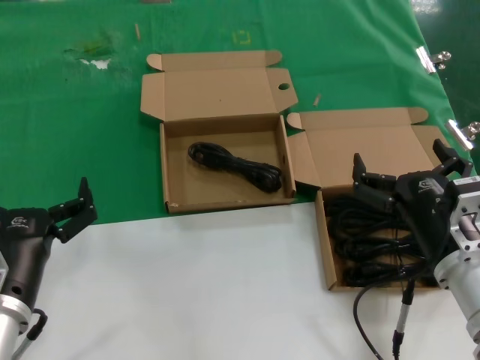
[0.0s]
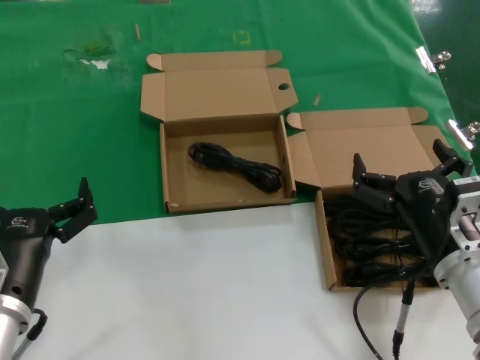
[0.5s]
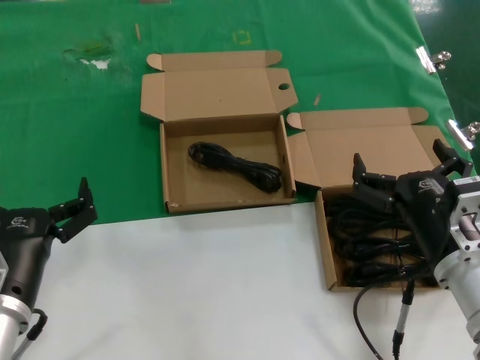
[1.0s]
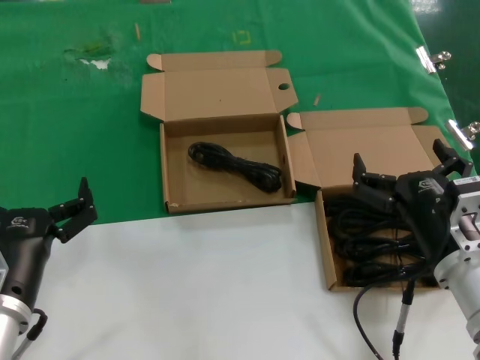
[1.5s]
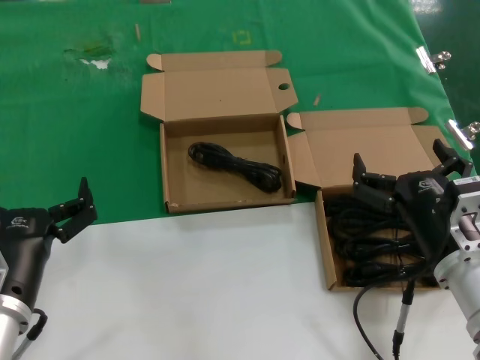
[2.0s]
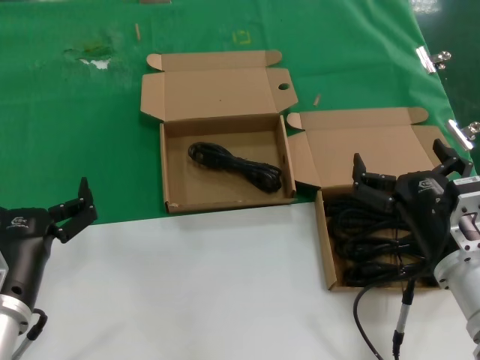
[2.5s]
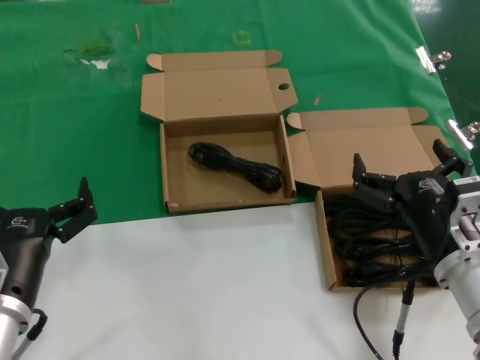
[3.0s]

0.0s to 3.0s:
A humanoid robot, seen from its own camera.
Task of the whole recording: take the parts from the box containing them and put them into an empty box.
0.0s to 3.0s: The two hands keep their place.

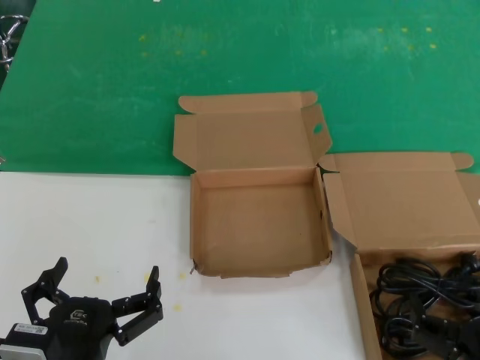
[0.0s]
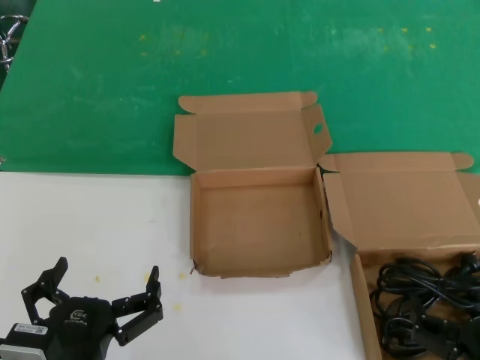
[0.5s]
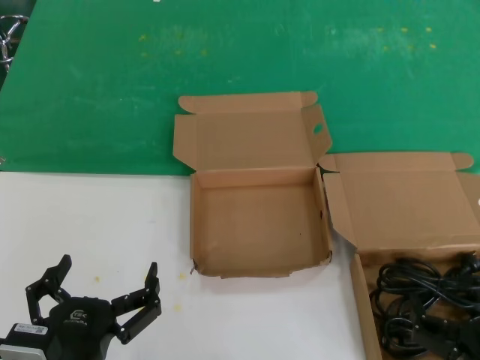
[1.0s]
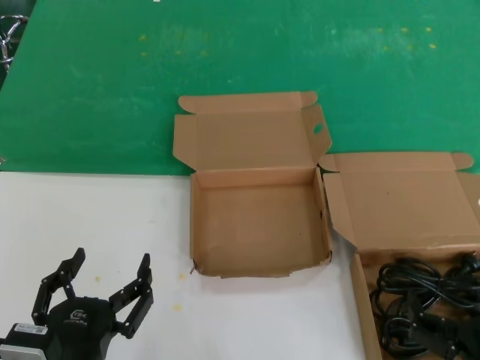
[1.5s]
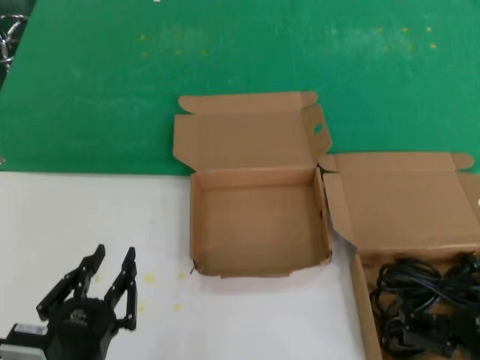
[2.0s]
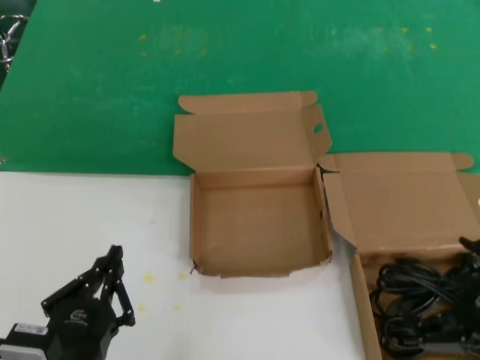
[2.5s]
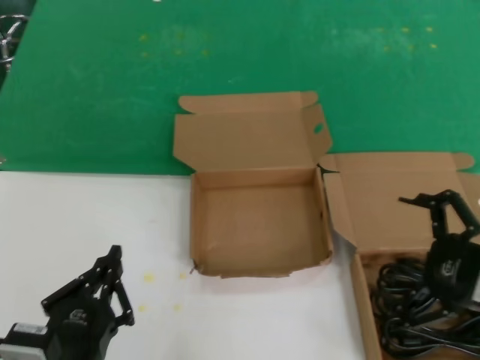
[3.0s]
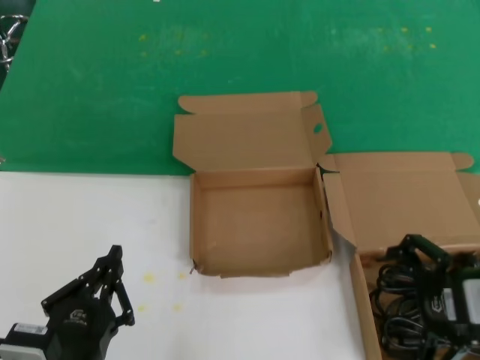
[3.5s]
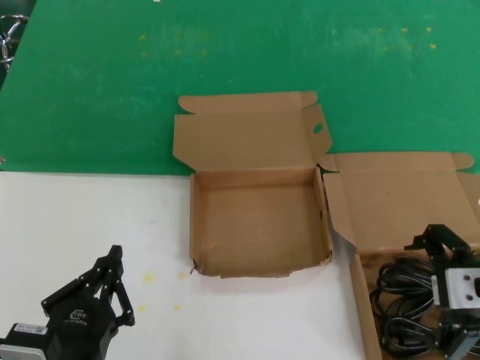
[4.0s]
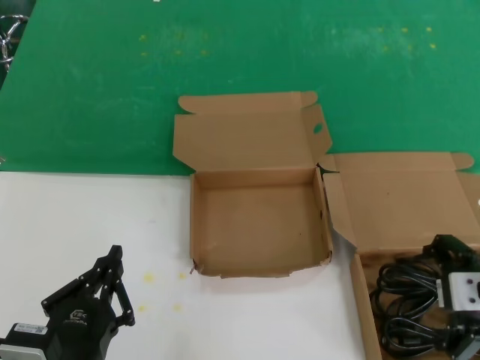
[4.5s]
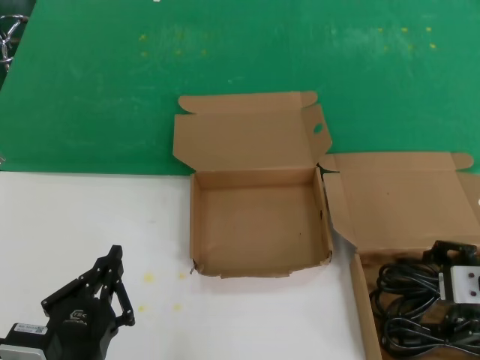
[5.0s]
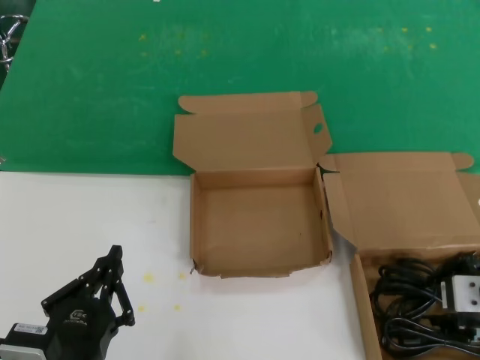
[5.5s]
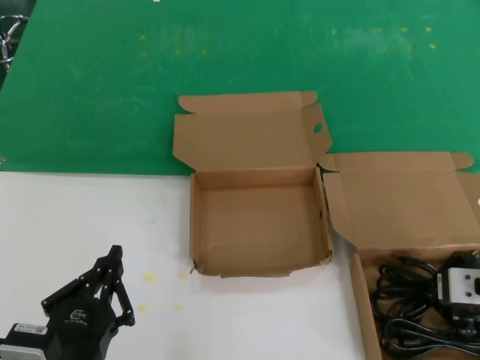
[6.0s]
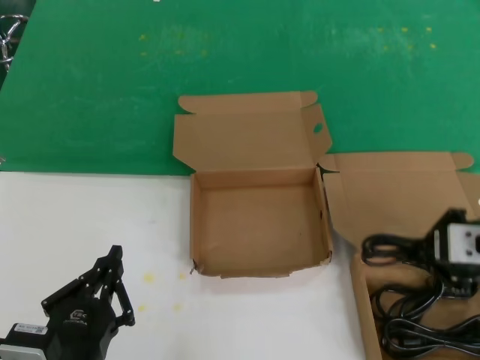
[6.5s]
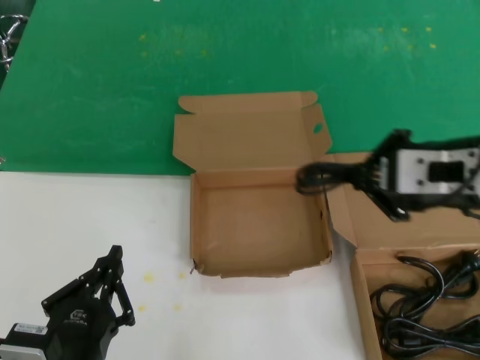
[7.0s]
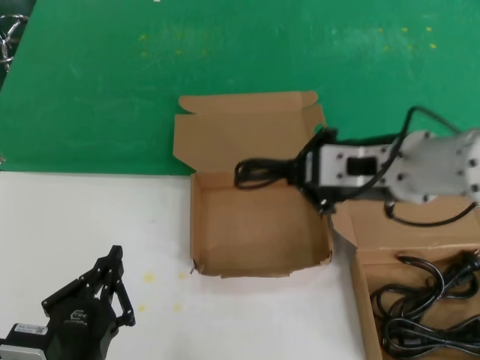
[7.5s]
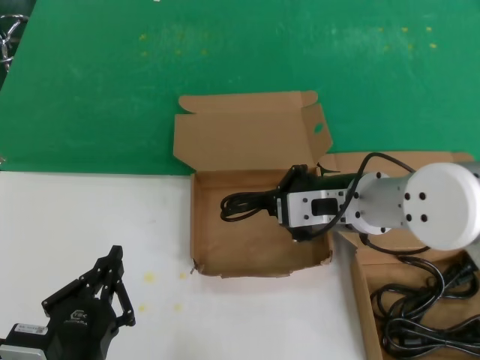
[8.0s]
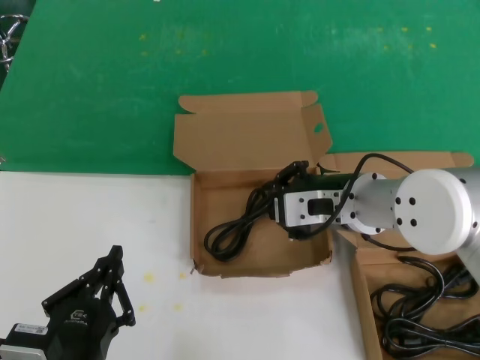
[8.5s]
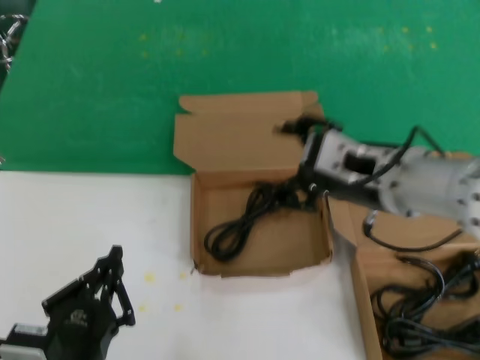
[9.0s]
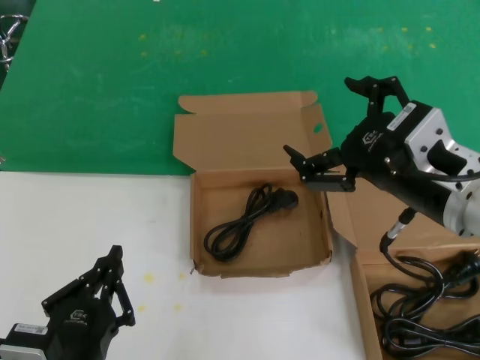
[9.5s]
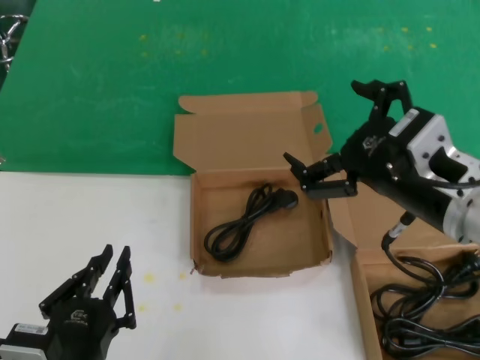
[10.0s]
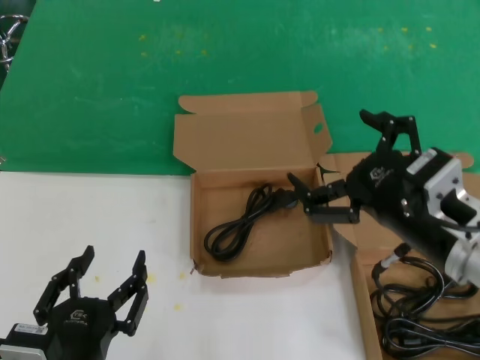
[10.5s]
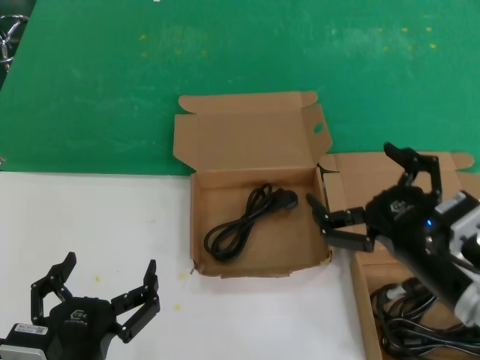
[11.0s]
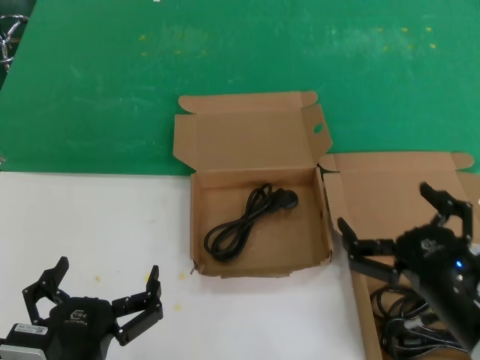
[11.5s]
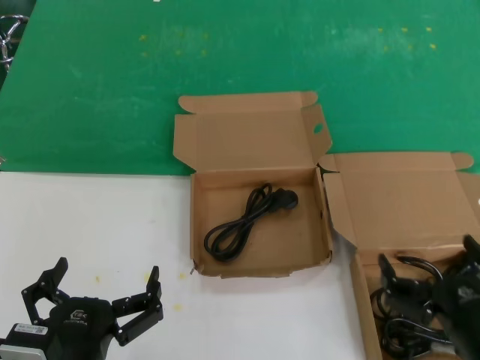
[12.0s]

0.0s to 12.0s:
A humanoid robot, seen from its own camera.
Task of the whole recording: take the parts from the box containing them and put them into an empty box.
Step, 0.0s to 5.5s: Grasp the data cable.
Step, 6.0s to 8.5s: Place the data cable in the another box.
0.0s to 2.0s: There are only small adjustments of the hands.
2.0s to 4.0s: The right hand travels upward and forward by roughly 20 cm.
4.0s to 6.0s: The right hand ends up about 5 cm from where it was.
6.0s to 8.0s: The right hand travels to the left by roughly 15 cm.
8.0s to 10.0s: The right hand shifts approximately 15 cm backward and to the right.
10.0s to 12.0s: The right hand moves downward, about 20 cm.

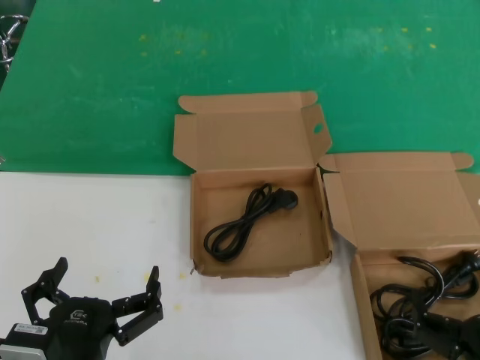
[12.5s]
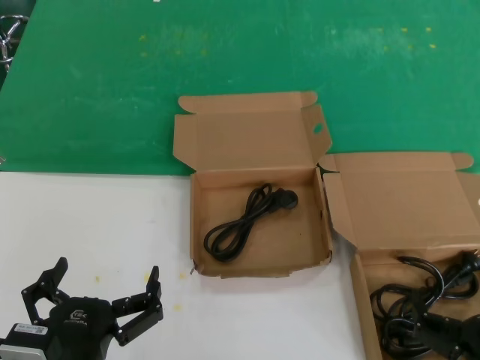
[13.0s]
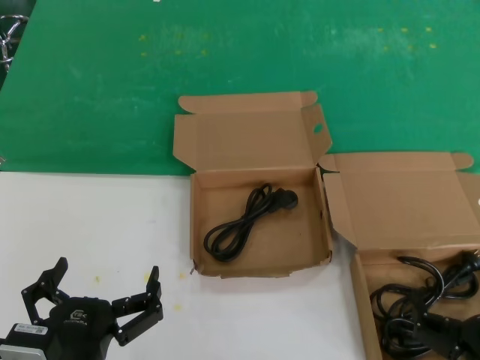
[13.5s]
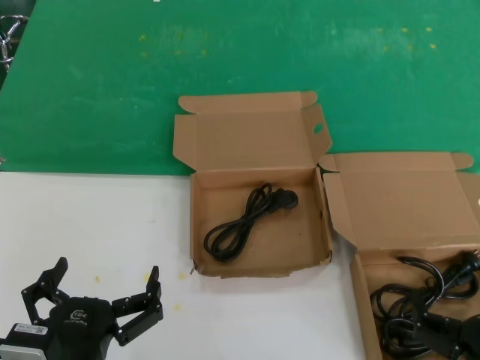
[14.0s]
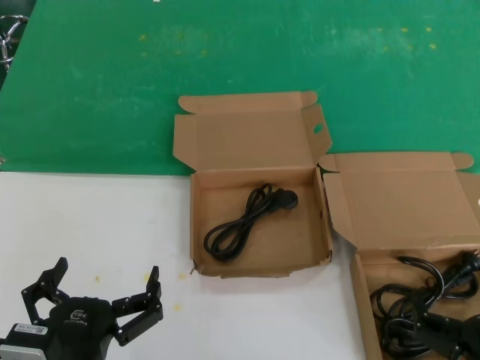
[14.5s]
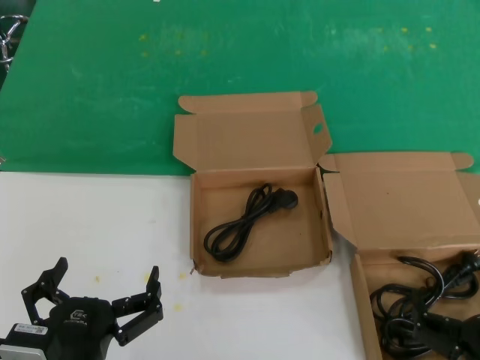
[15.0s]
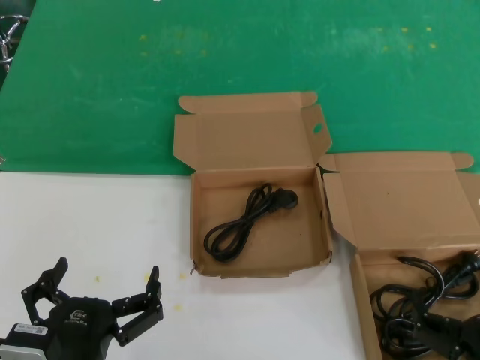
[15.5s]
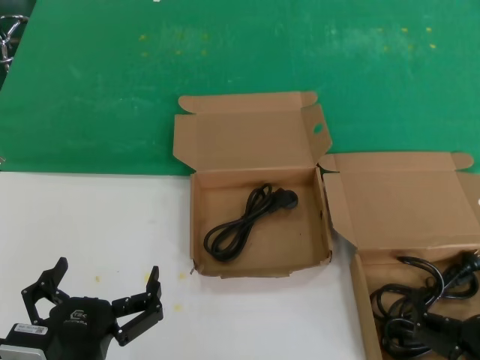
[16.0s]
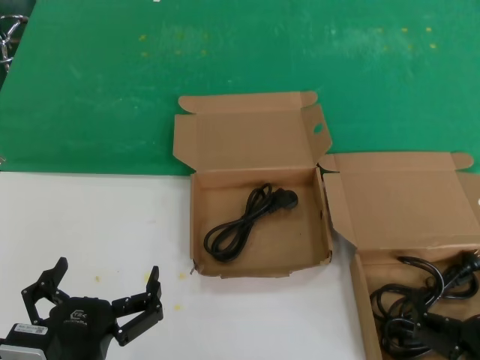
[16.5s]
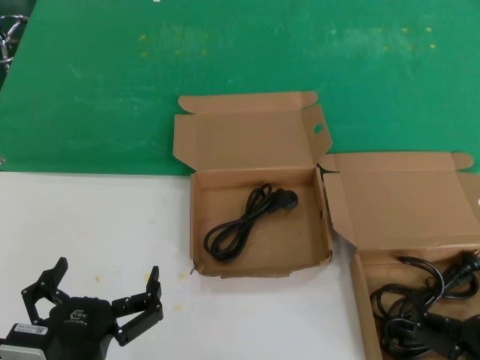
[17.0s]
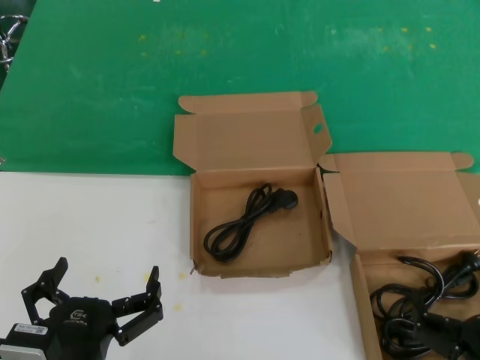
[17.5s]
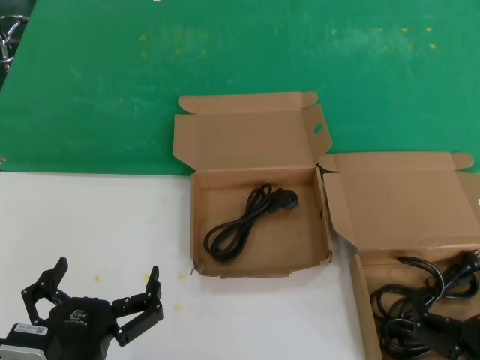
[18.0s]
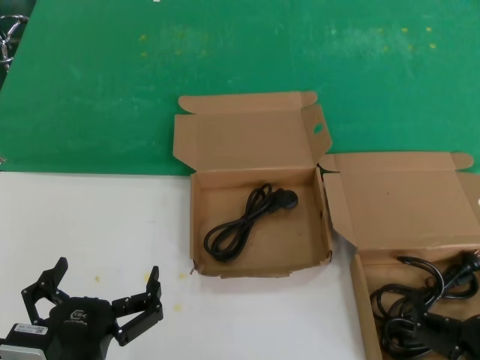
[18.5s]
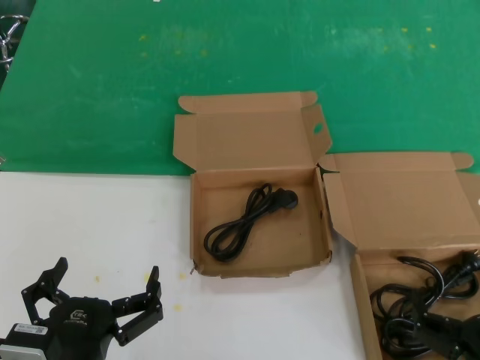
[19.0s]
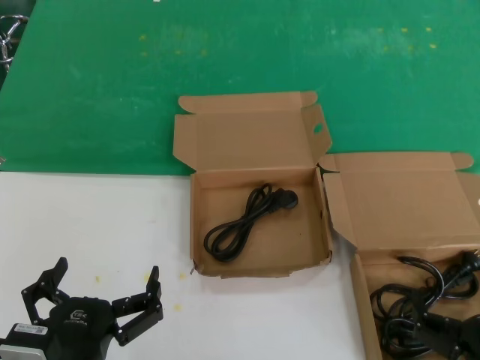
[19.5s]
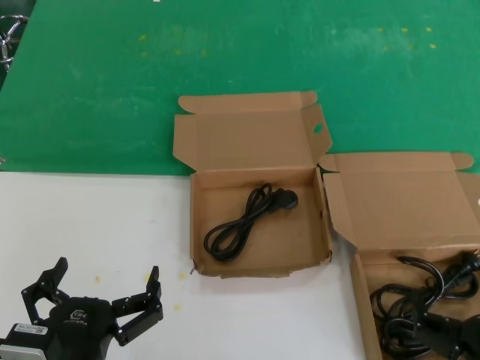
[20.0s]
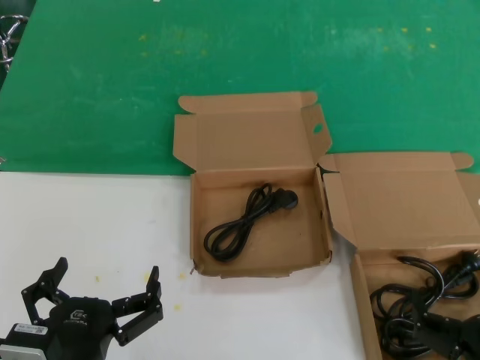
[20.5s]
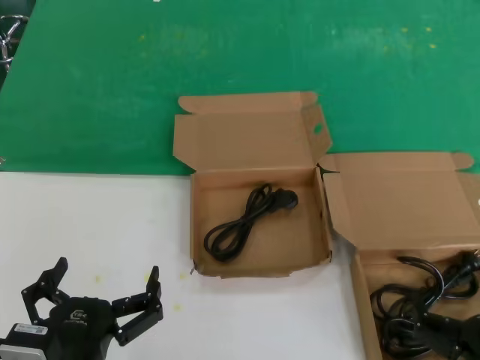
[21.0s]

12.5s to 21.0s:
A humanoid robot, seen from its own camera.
Task of the whole recording: take the parts from the box containing them and put them into an empty box.
12.5s to 21.0s: Neither hand changes place.

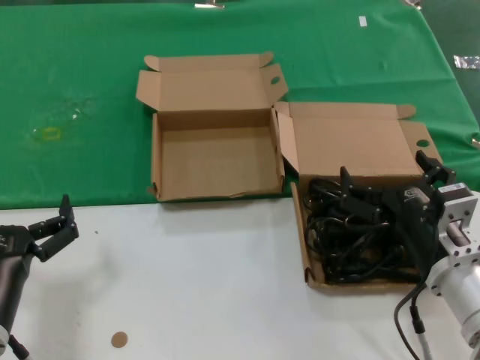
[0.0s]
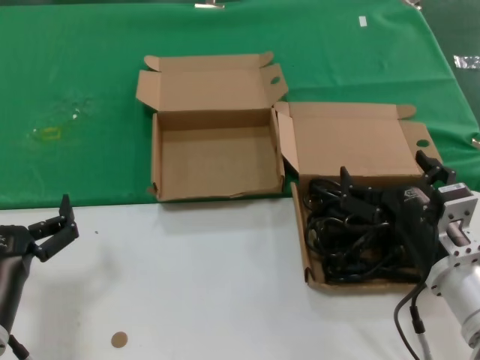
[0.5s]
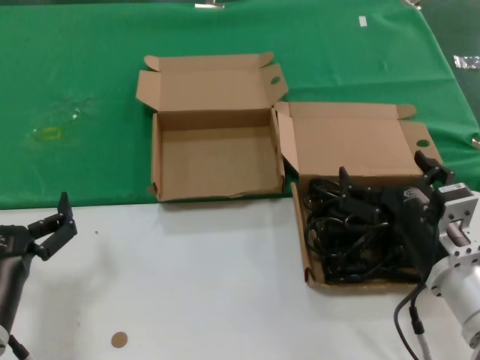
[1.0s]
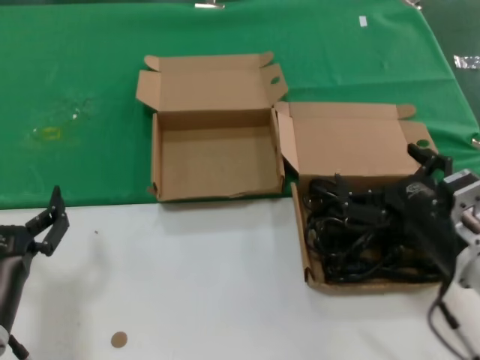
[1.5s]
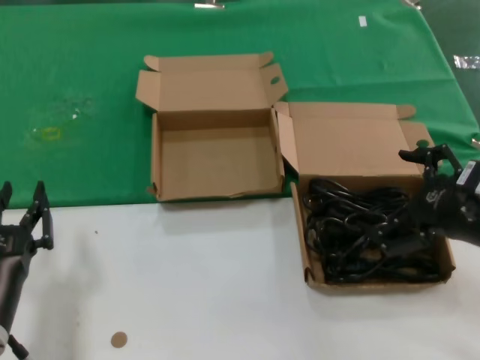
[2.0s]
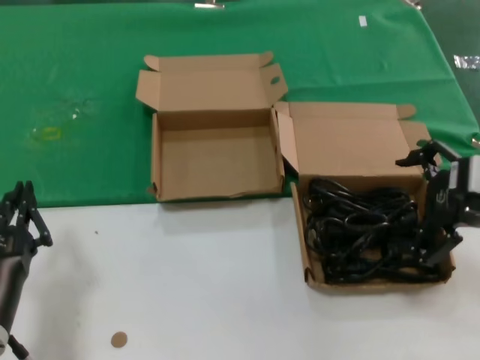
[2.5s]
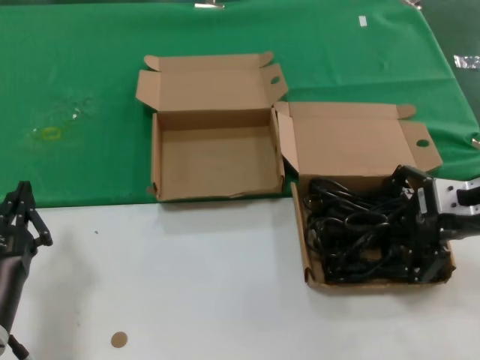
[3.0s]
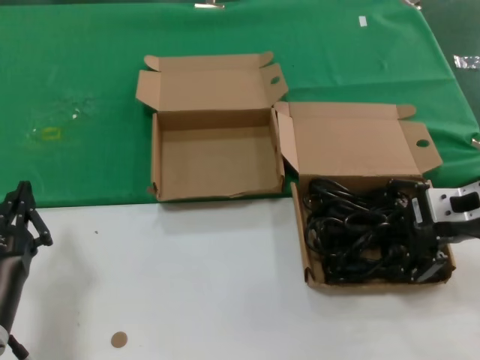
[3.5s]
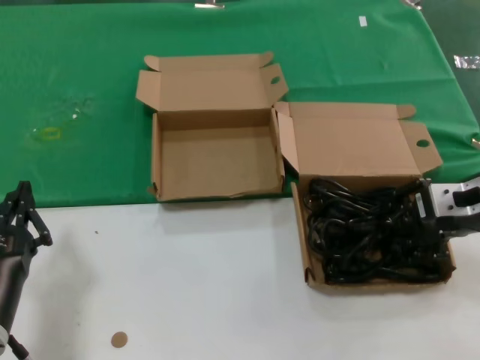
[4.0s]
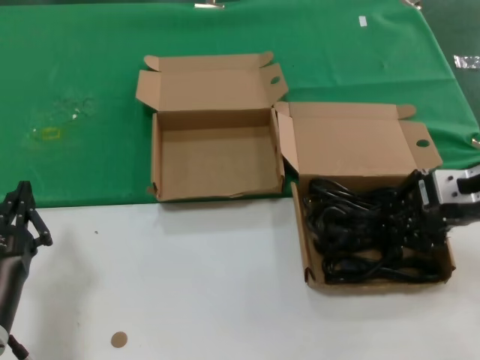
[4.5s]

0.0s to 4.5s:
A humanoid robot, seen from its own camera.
Task of the whole recording: take the parts from the box containing them and put them into an empty box.
Step, 0.0s to 4.0s: Grasp the data cable.
0.0s to 2.0s: The right hand travels upward and to the right by roughly 15 cm.
2.0s to 4.5s: The right hand travels forward by roughly 10 cm.
